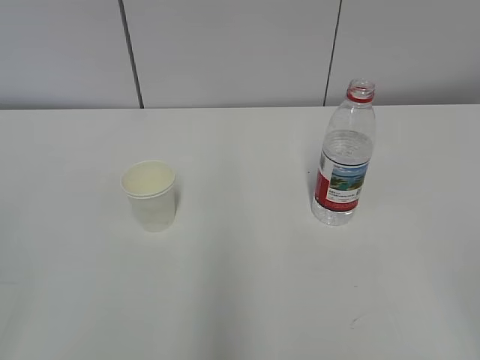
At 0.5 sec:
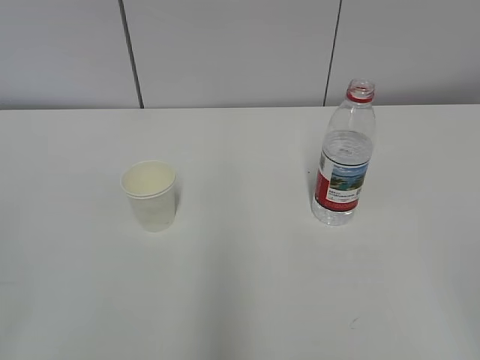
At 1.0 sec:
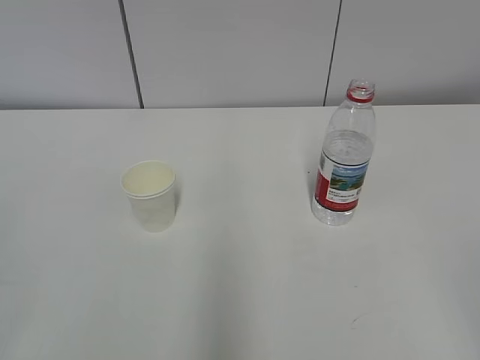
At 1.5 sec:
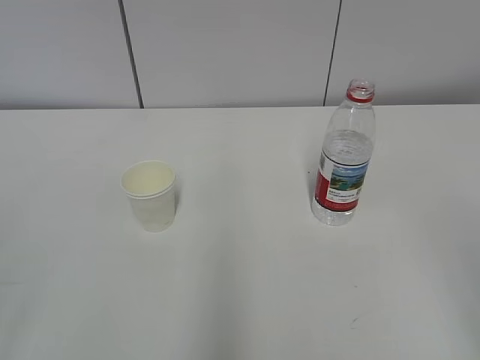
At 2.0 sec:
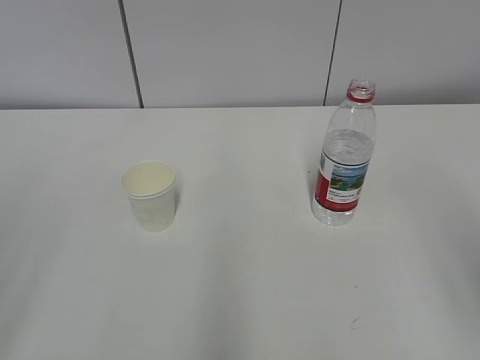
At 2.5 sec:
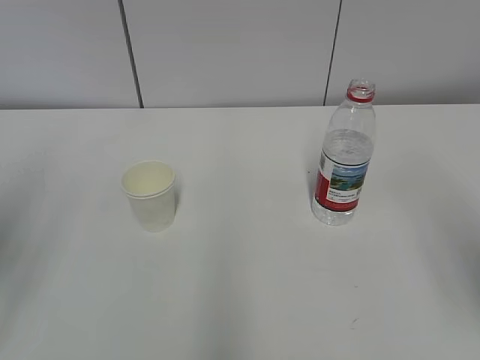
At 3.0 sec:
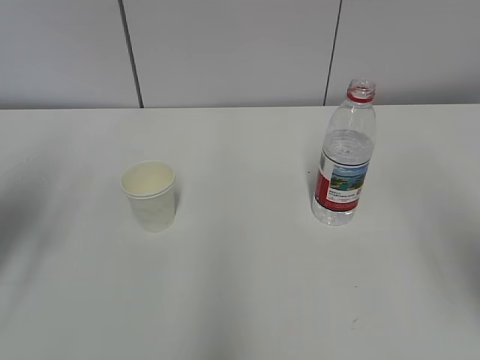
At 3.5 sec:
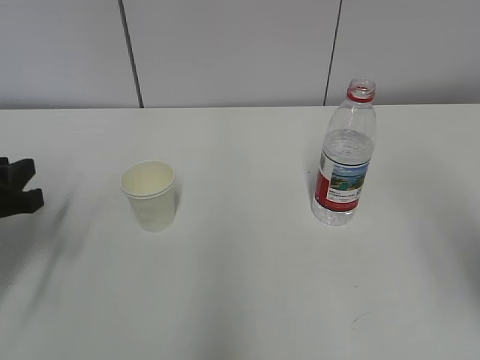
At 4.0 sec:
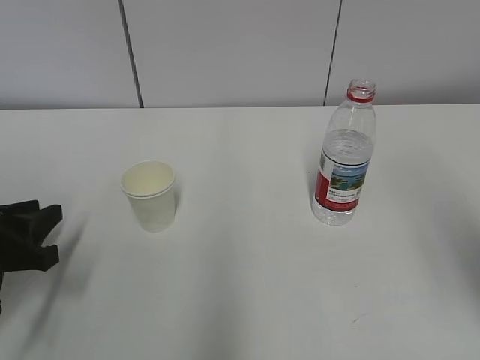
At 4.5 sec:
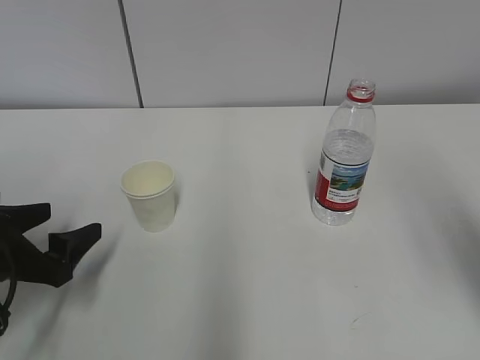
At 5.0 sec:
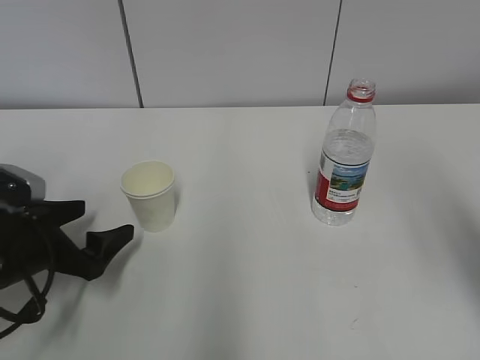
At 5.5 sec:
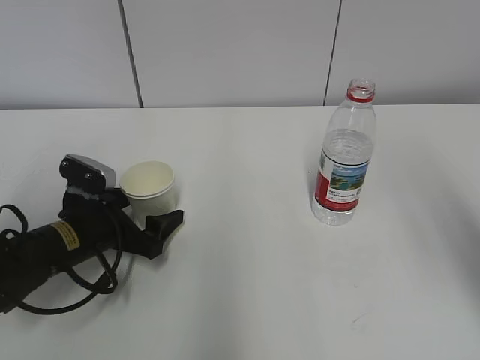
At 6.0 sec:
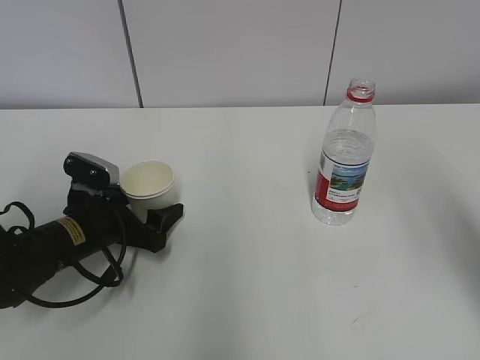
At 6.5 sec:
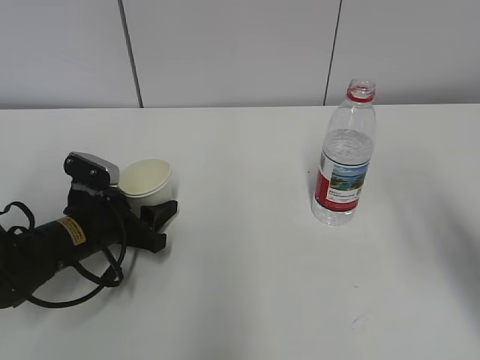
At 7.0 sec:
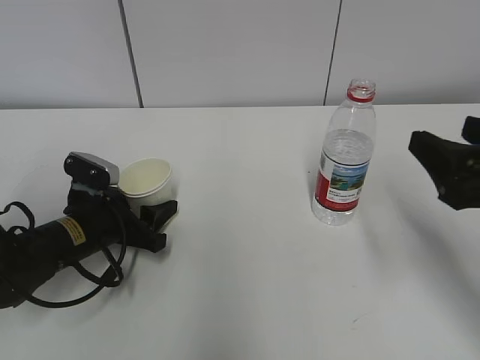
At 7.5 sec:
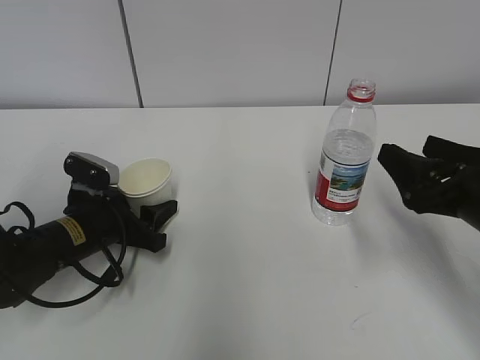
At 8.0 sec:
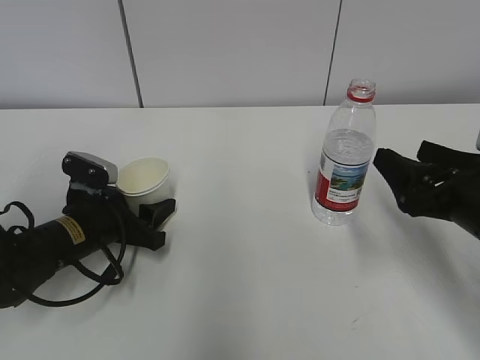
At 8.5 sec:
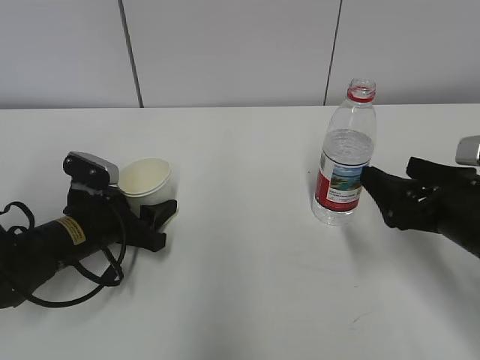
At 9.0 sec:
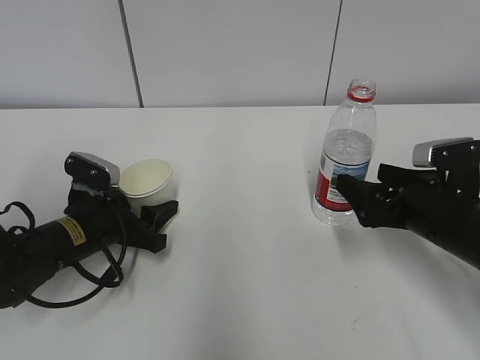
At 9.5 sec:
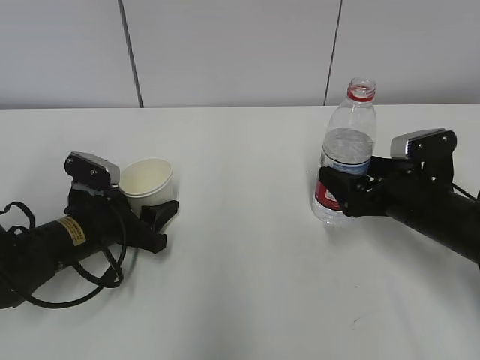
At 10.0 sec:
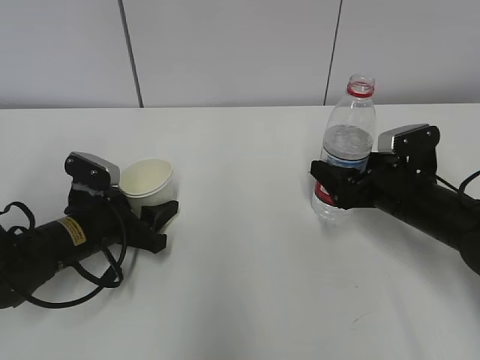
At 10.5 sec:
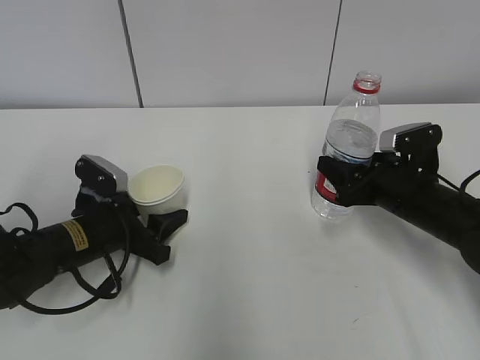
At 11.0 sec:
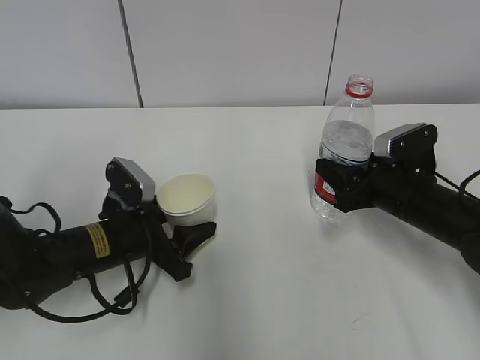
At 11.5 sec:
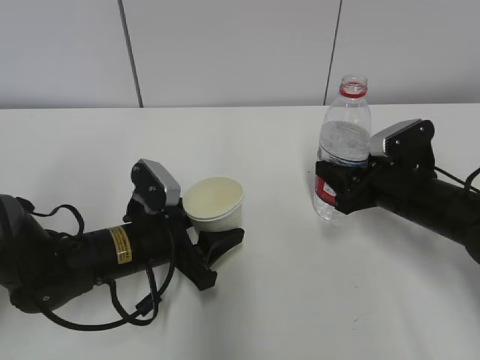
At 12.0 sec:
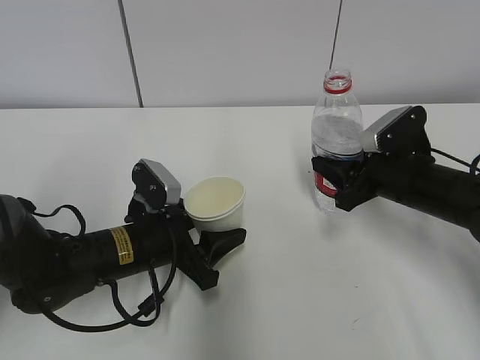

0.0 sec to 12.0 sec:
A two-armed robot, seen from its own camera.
Step, 0.0 sec to 8.5 sec: Grab the paper cup with the left hand.
Step, 9.0 sec to 9.5 sec: Grab the water bottle with the right hand.
2.0 sec to 4.0 sec: The left gripper goes roughly 25 cm downward and forward.
4.0 sec to 6.0 sec: The left gripper shifts about 15 cm forward, to the right and downward, and opens.
6.0 sec to 8.0 sec: The right gripper travels downward and forward by about 20 cm; the left gripper closes.
8.0 sec to 10.0 sec: The right gripper is displaced forward and downward by roughly 10 cm.
10.0 sec to 12.0 sec: The left gripper moves to the right, approximately 10 cm. The right gripper closes up.

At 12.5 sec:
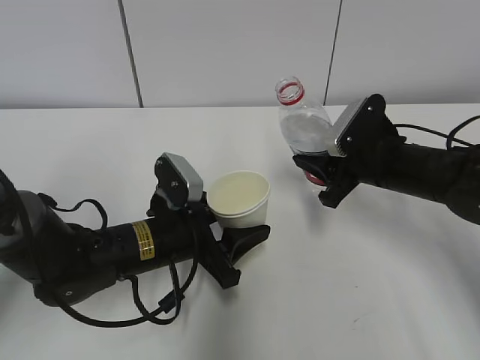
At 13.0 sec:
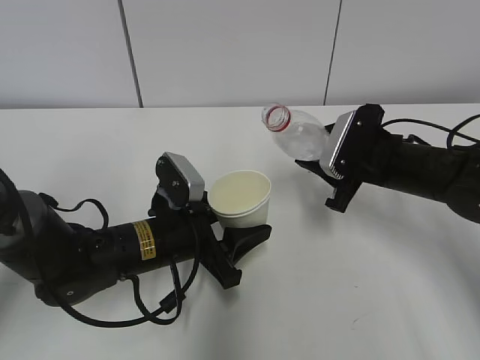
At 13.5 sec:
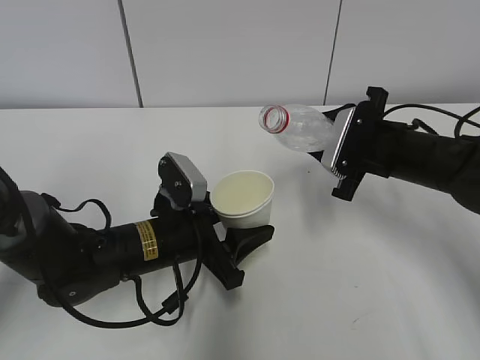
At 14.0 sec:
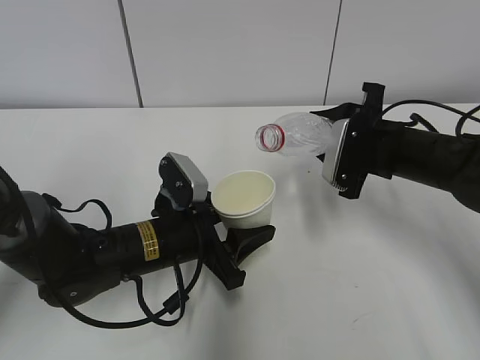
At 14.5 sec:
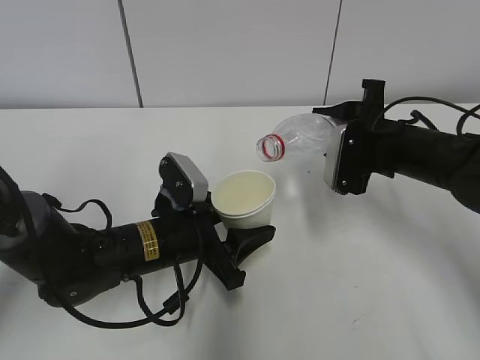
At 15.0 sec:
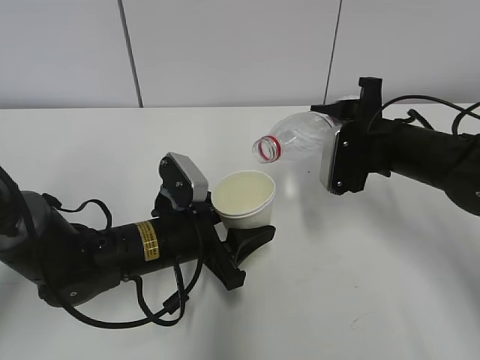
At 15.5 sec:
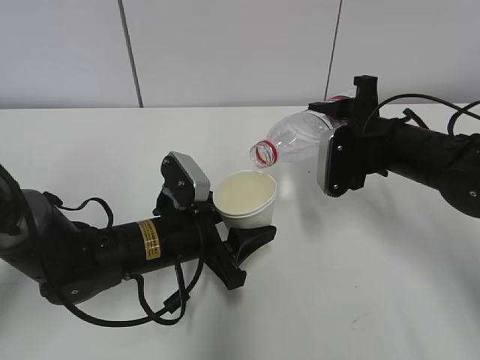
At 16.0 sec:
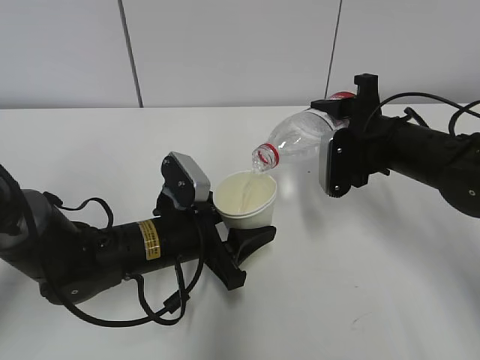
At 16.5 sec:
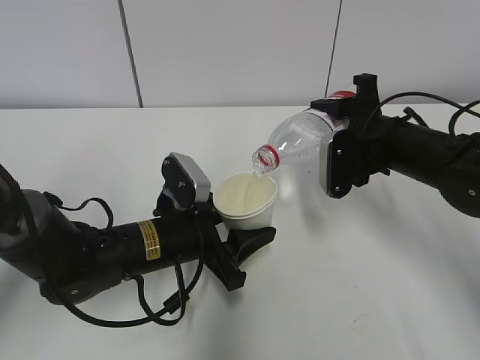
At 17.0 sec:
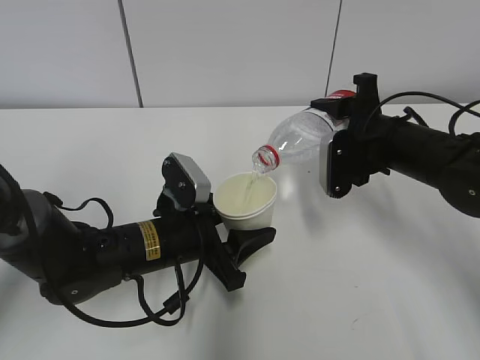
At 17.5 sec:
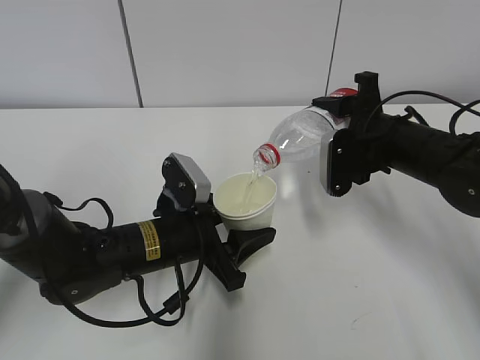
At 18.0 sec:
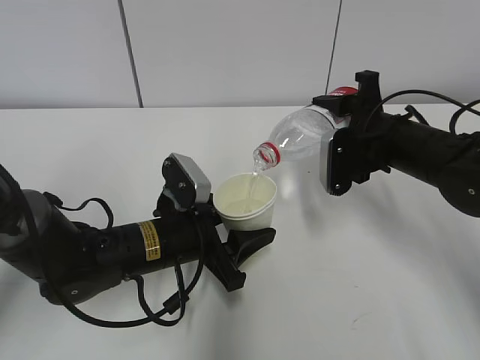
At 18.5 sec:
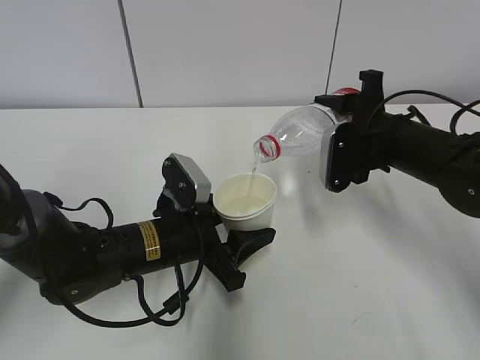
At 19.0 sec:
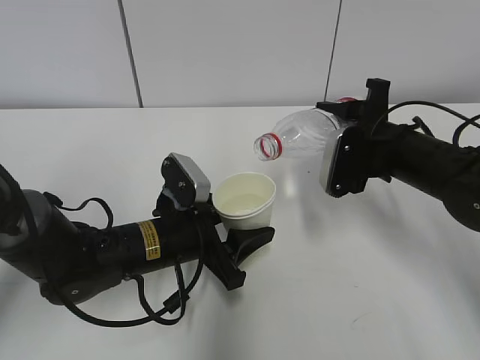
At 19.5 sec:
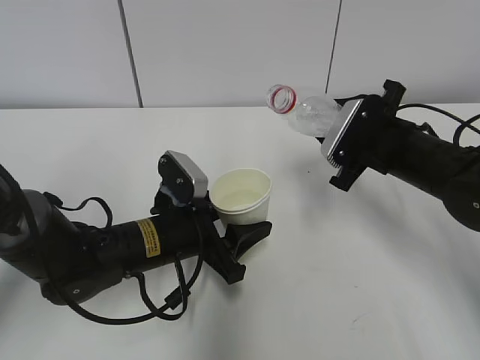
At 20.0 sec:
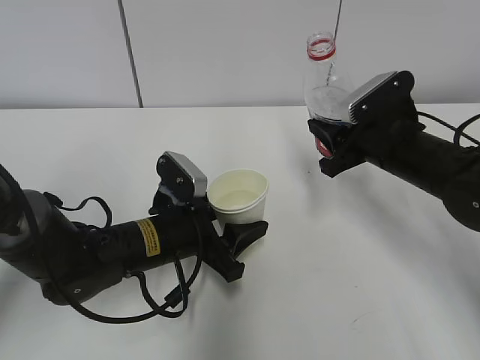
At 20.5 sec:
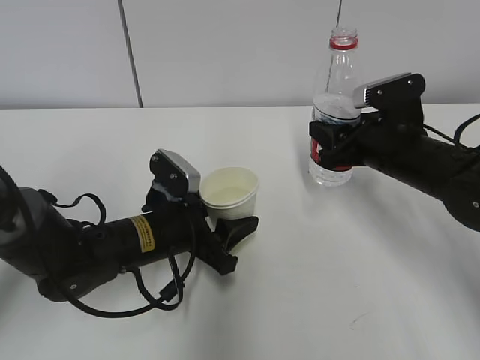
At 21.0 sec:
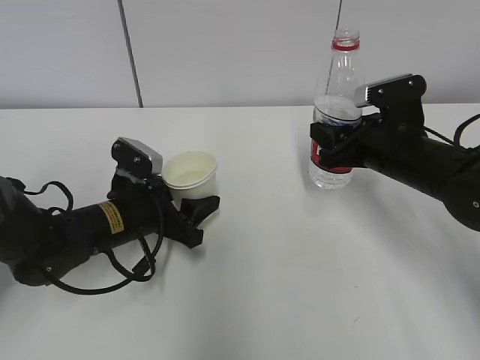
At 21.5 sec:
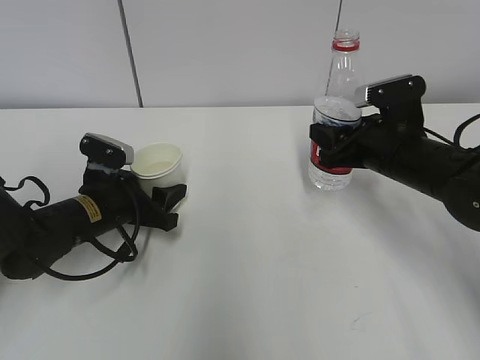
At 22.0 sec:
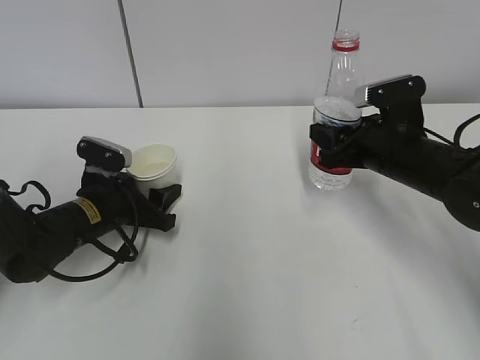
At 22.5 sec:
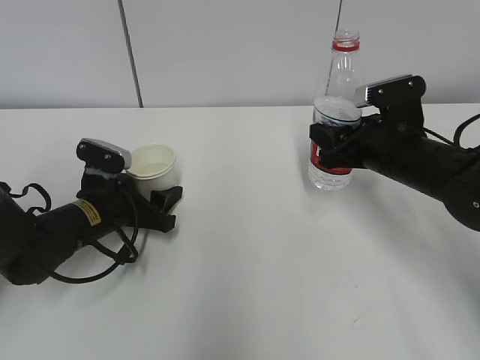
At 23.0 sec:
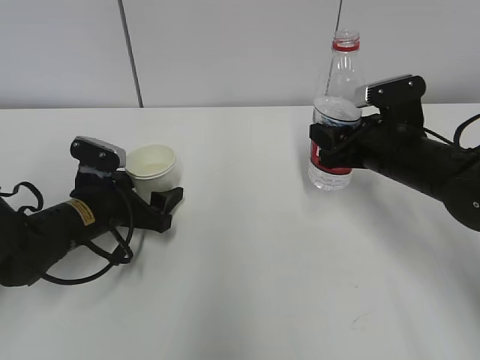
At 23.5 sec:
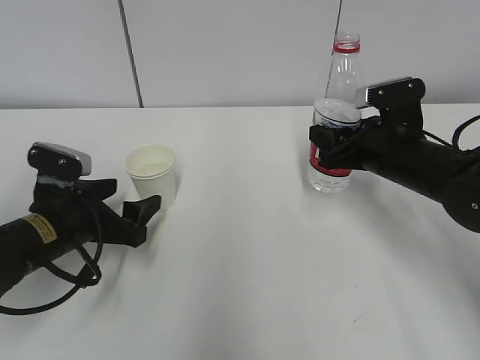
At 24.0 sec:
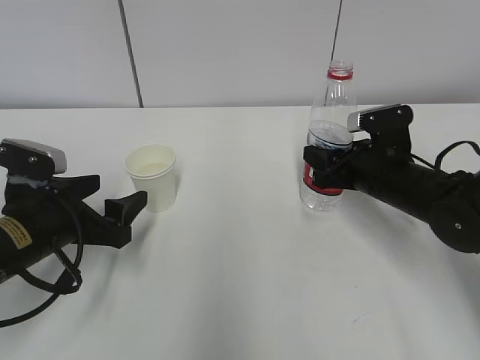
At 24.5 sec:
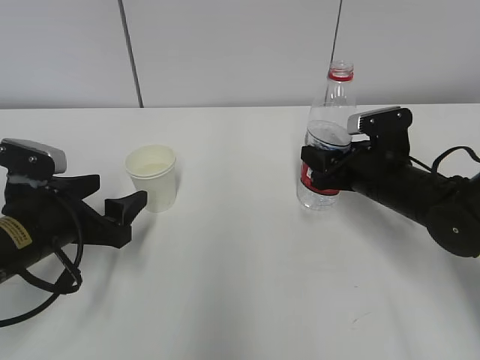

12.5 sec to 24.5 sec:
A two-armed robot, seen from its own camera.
Step, 13.0 sec to 15.5 sec: Fill water with the left hand.
Step, 13.0 sec to 15.5 sec: Pour water with the right hand.
Step, 17.5 sec to 18.5 sec: Place the paper cup with the left hand.
Step, 19.0 sec to 20.5 sec: Place the water bottle with the right hand.
14.5 sec to 16.5 sec: The grippers move only a little.
16.5 sec to 18.5 sec: Neither gripper changes place.
20.5 sec to 22.5 sec: The left gripper is displaced to the left by about 10 cm.
22.5 sec to 24.5 sec: The left gripper travels backward and upward by roughly 10 cm.

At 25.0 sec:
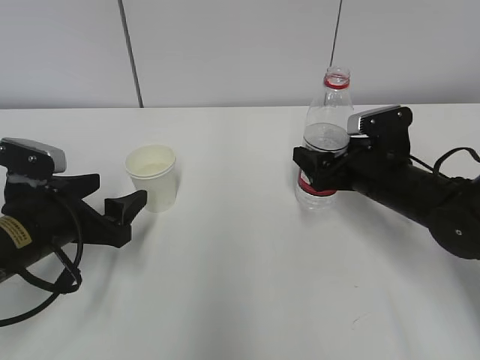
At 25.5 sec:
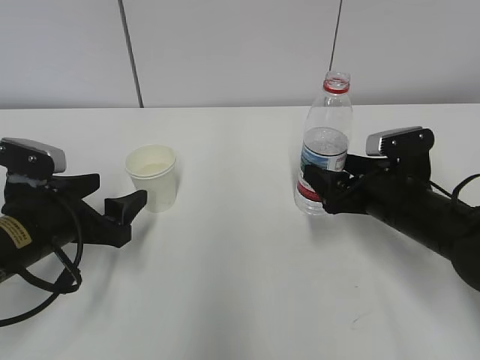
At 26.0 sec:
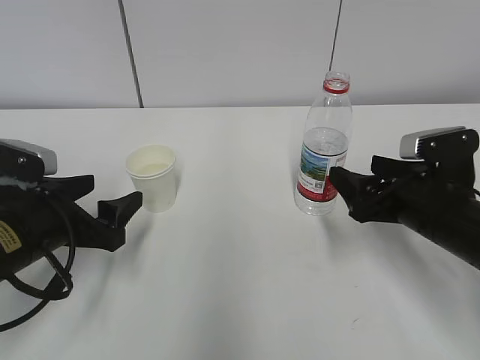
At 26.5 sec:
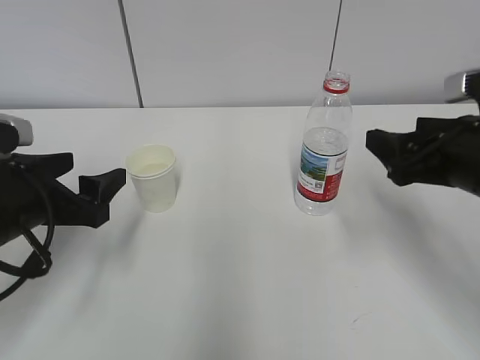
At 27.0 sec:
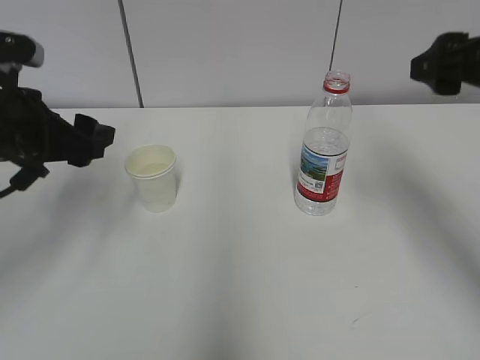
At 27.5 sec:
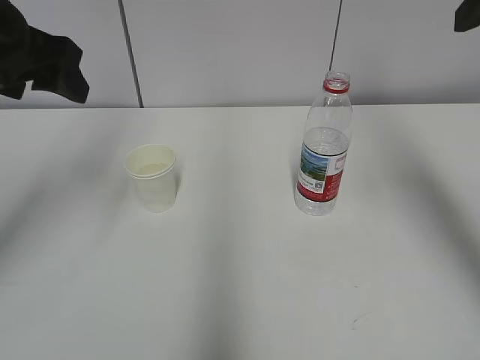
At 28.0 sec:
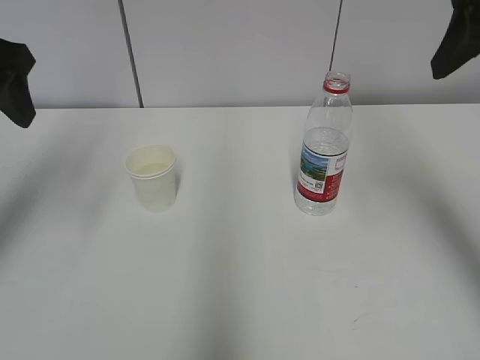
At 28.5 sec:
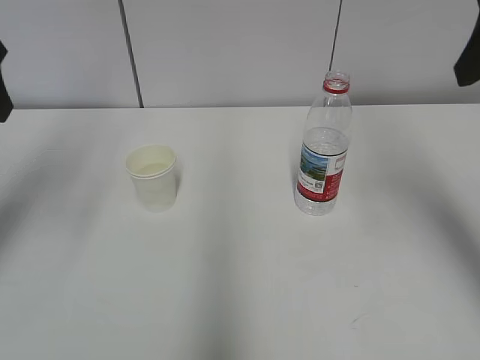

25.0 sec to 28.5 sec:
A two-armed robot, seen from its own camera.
25.0 sec to 27.0 sec: The left gripper heads upward, covering about 10 cm. Meanwhile the right gripper heads upward, covering roughly 20 cm.
27.0 sec to 28.5 sec: The right gripper goes roughly 10 cm upward; the left gripper moves upward, about 15 cm.
